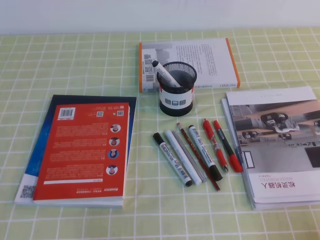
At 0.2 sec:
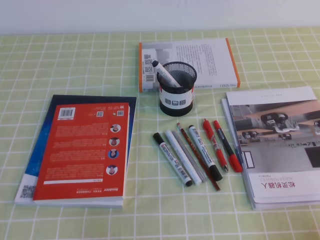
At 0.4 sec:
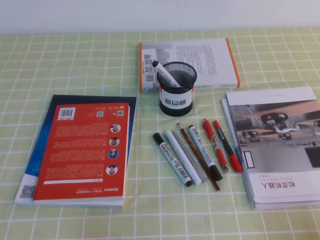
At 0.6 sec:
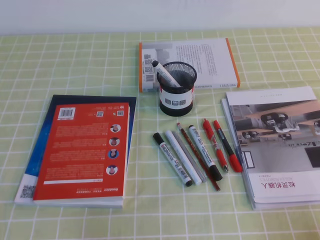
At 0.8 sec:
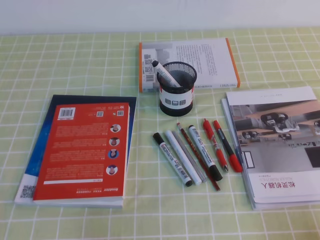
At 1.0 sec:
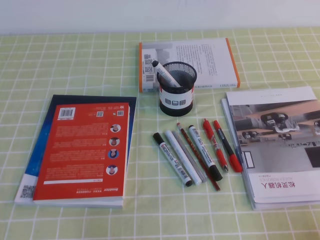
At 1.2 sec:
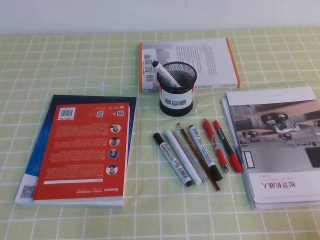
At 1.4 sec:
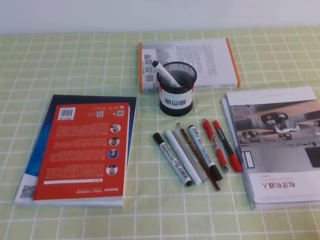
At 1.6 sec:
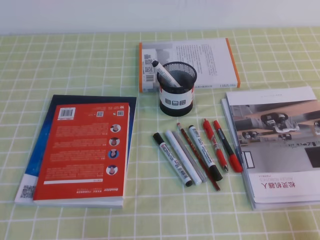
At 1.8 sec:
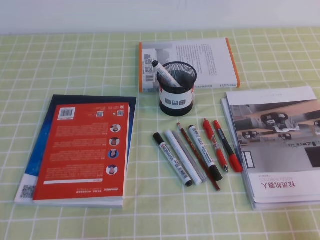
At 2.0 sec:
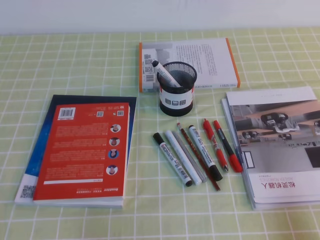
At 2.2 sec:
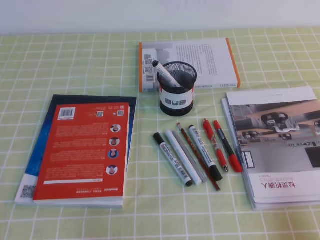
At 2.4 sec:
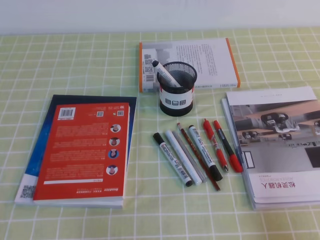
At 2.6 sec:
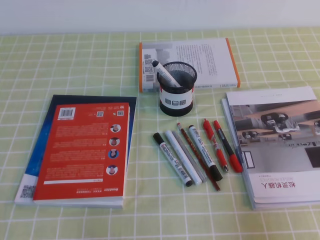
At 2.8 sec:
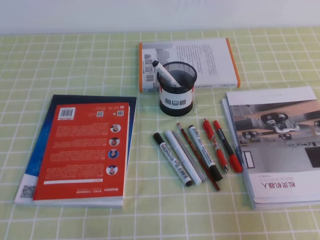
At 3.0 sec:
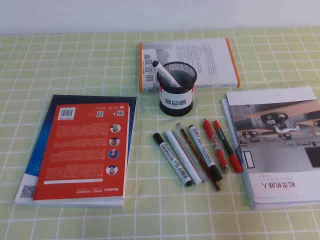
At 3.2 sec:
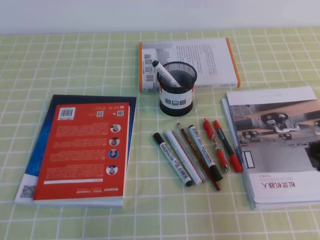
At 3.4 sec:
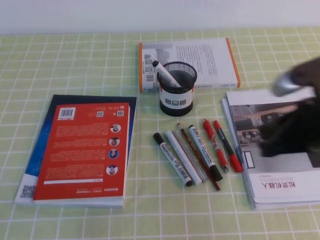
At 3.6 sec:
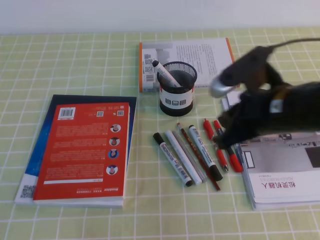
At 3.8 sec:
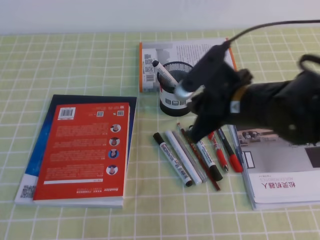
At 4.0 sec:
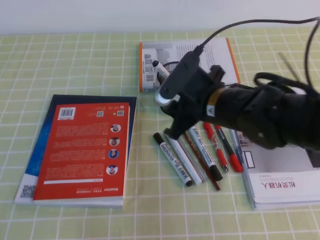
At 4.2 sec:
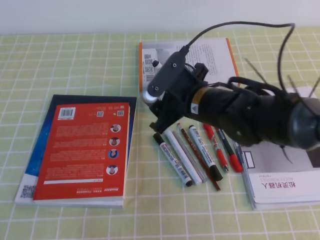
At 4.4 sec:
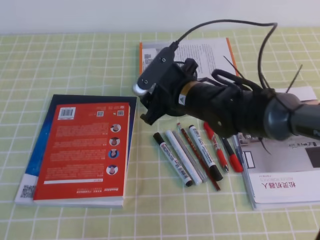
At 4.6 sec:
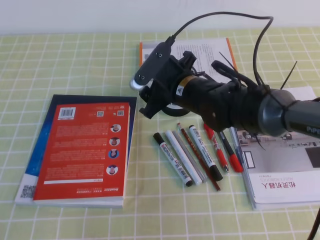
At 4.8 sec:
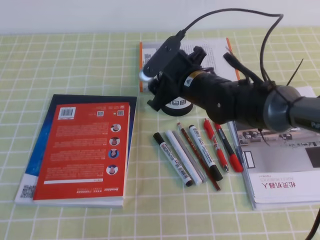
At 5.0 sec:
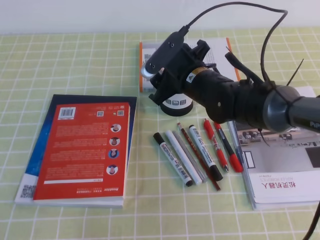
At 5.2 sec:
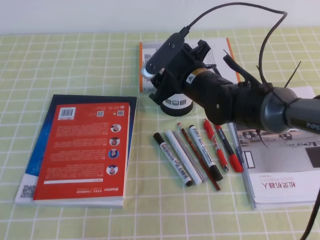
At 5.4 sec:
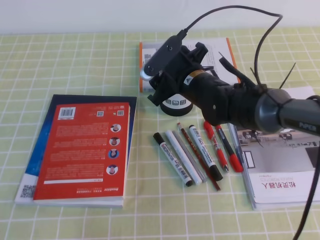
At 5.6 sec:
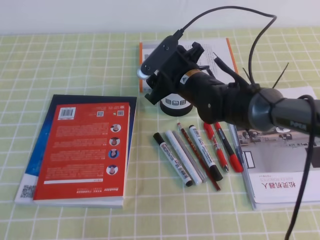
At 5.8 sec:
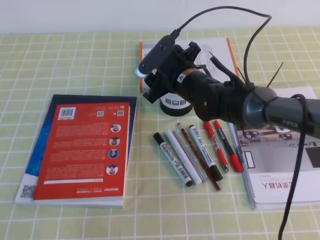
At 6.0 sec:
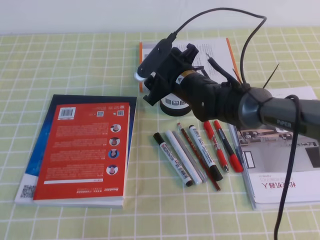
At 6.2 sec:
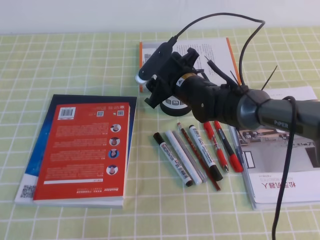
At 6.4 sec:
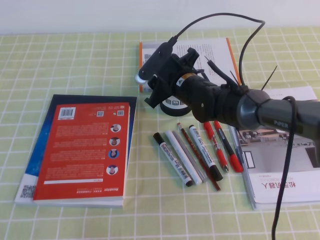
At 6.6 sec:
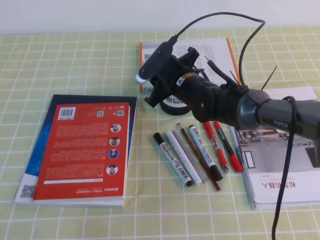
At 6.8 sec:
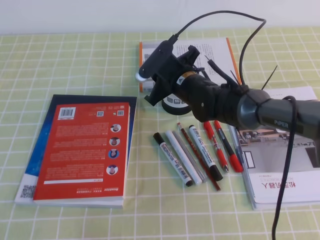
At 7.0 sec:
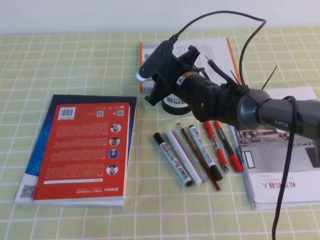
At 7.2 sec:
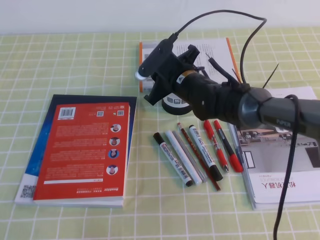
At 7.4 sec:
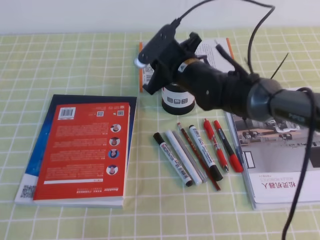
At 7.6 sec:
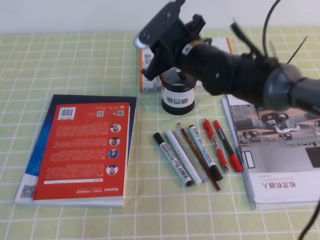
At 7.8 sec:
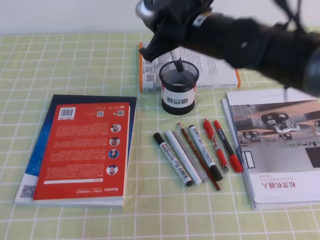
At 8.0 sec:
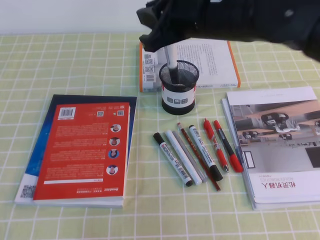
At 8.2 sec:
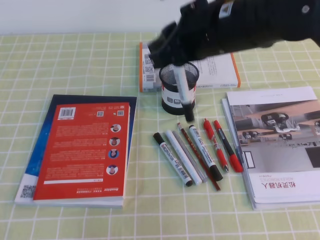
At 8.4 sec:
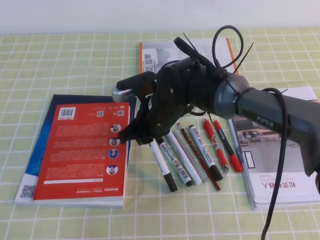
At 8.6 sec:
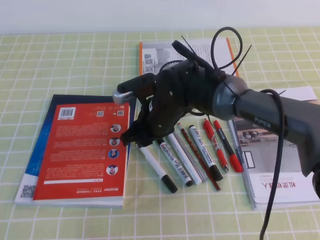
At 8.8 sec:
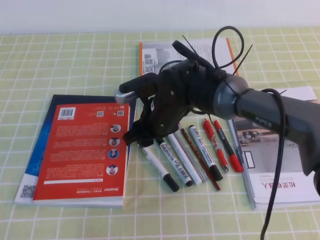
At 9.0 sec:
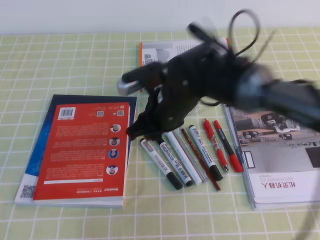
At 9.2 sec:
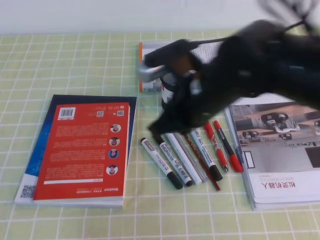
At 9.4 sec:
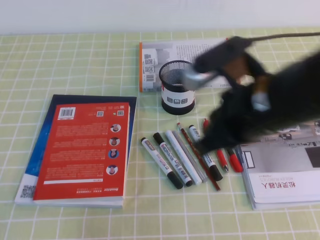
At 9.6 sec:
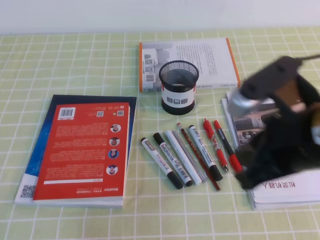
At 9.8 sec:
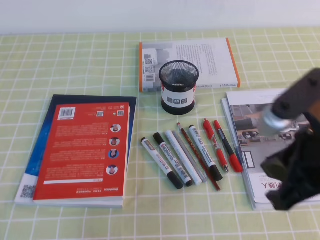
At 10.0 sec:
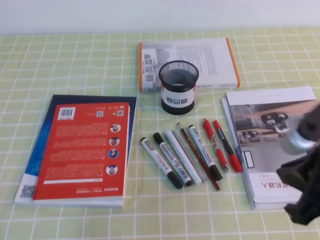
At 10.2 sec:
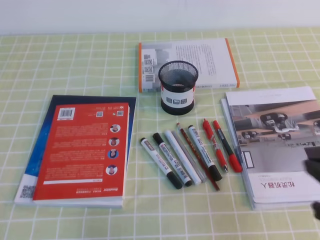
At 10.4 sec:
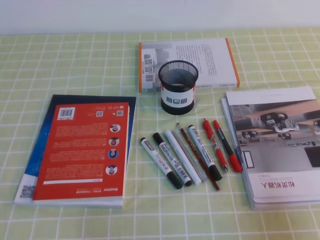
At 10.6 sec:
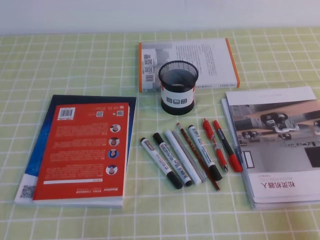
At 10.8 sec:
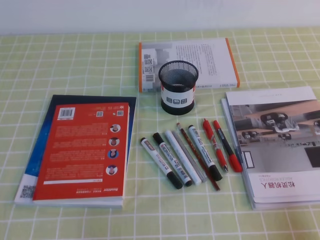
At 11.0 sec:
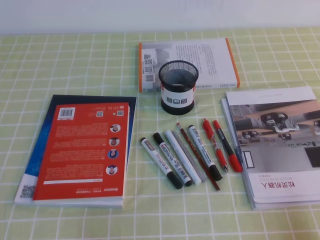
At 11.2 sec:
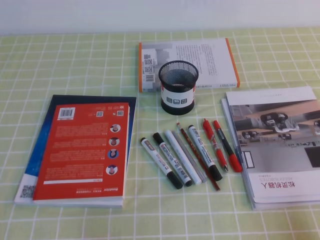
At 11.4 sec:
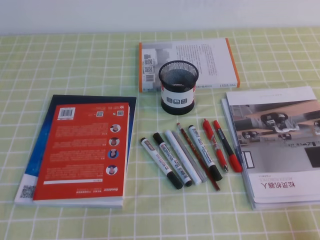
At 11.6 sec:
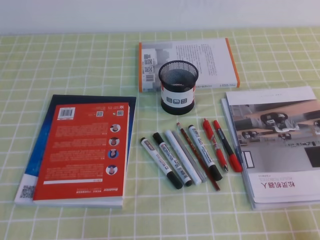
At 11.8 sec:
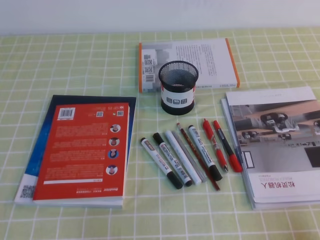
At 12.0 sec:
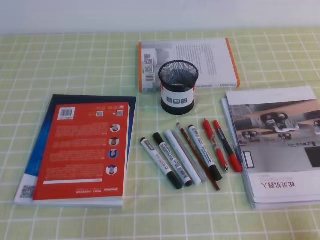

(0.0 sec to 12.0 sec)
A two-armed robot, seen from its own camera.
Step, 0.0 sec - 12.0 sec: Pick up the pen from the pen holder.
1.6 sec - 3.0 sec: The right gripper heads upward and forward, covering roughly 10 cm.
3.0 sec - 4.4 sec: The right gripper travels to the left and forward by roughly 35 cm, and opens its fingers.
4.4 sec - 6.0 sec: The right gripper heads forward, covering approximately 5 cm.
6.0 sec - 7.6 sec: The right gripper heads upward, covering roughly 5 cm, and closes.
7.6 sec - 9.0 sec: The right gripper heads backward, covering some 5 cm, and reaches approximately 10 cm upward, then returns.
9.0 sec - 10.4 sec: The right gripper shifts roughly 35 cm to the right and backward, and closes up.
10.4 sec - 12.0 sec: The right gripper heads downward and backward, covering about 10 cm.
